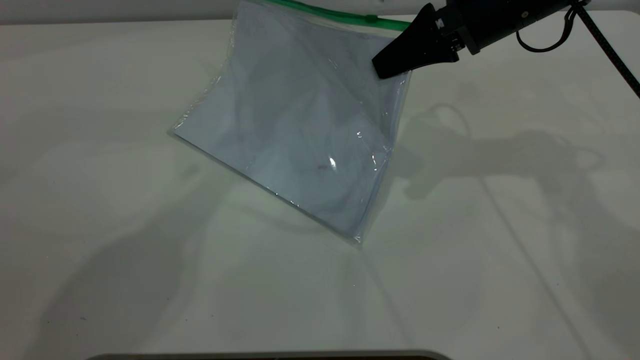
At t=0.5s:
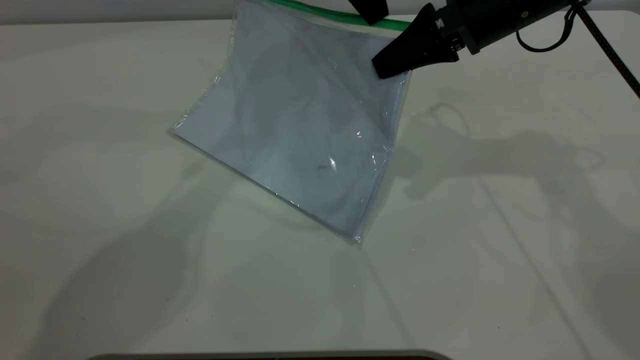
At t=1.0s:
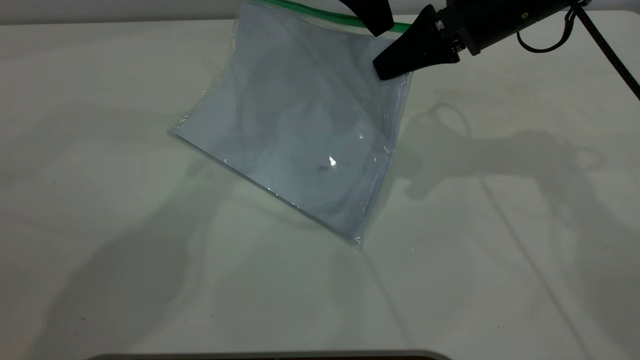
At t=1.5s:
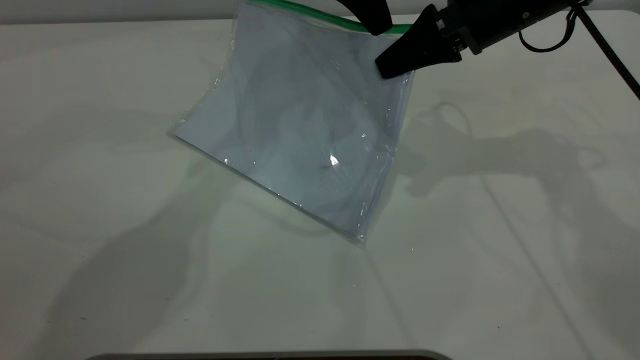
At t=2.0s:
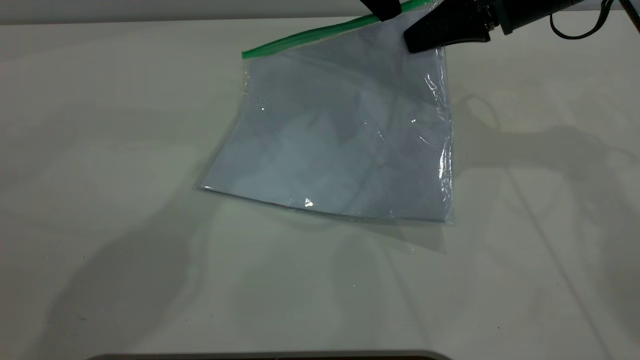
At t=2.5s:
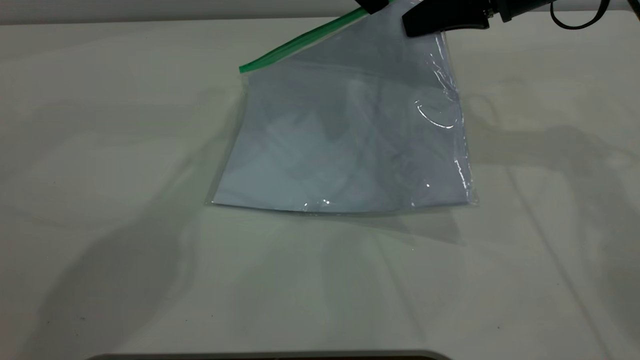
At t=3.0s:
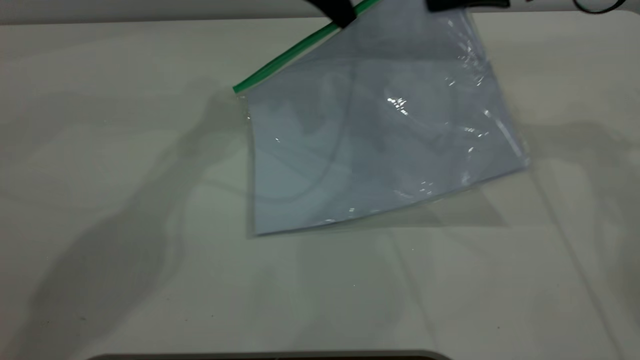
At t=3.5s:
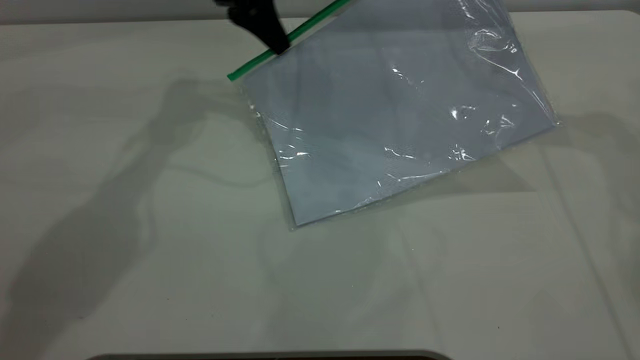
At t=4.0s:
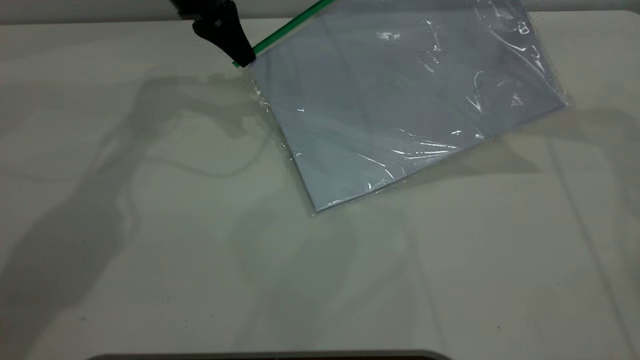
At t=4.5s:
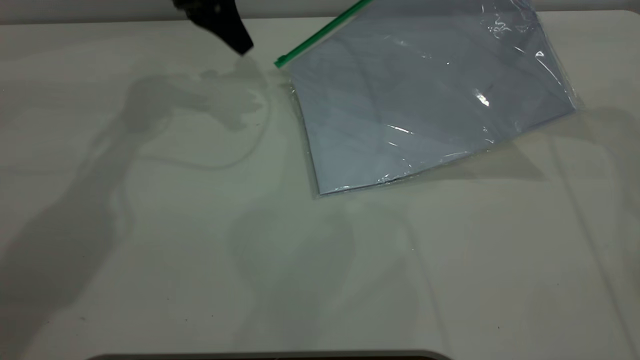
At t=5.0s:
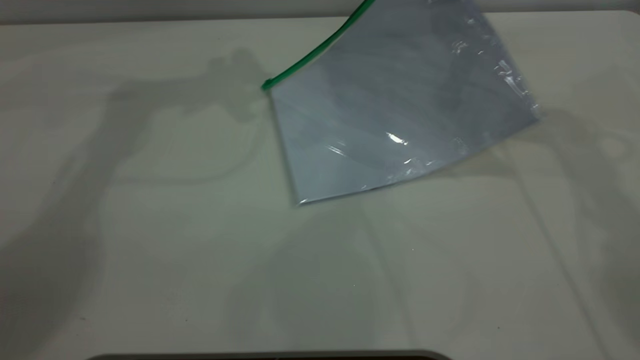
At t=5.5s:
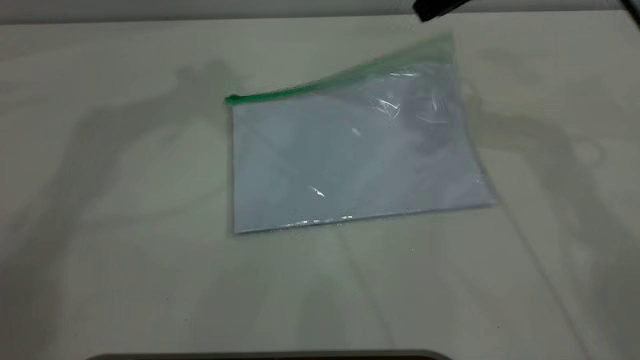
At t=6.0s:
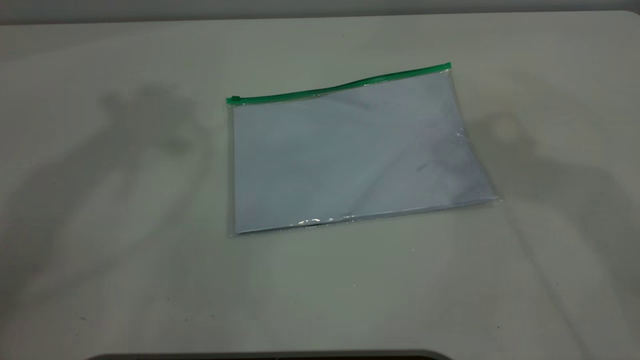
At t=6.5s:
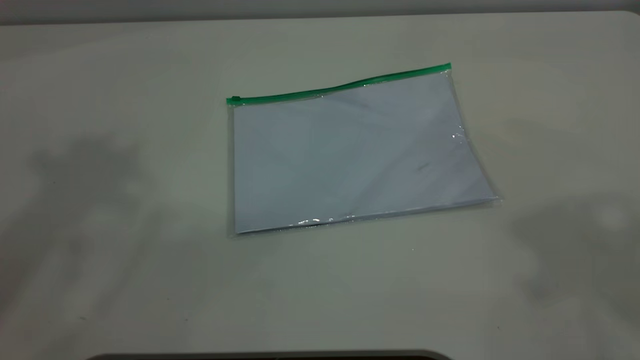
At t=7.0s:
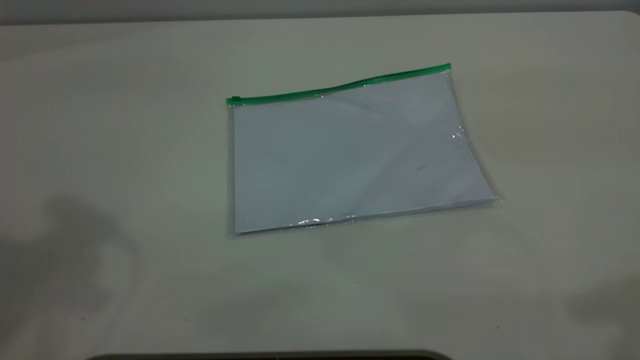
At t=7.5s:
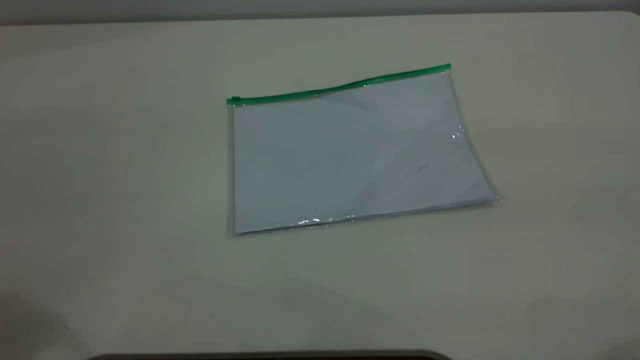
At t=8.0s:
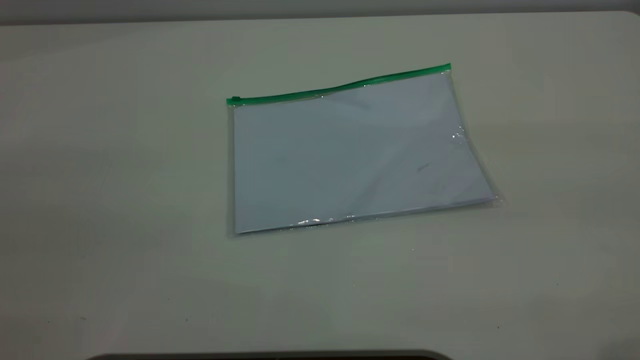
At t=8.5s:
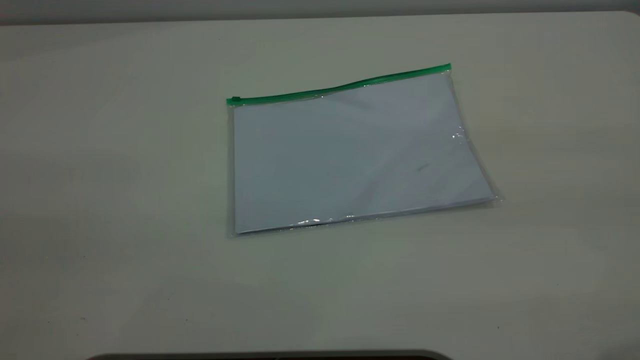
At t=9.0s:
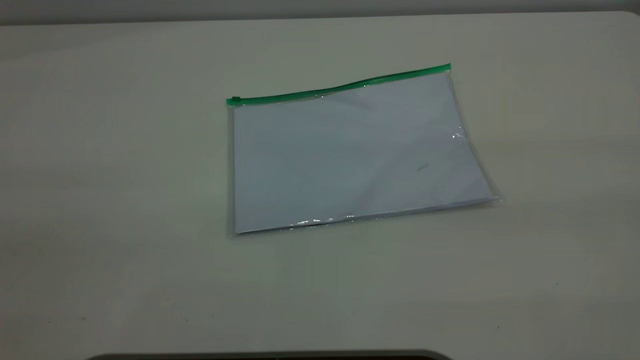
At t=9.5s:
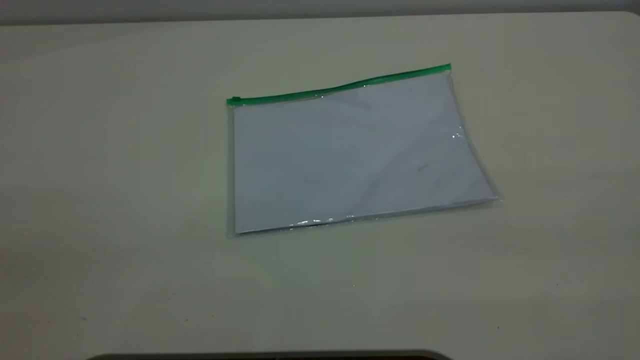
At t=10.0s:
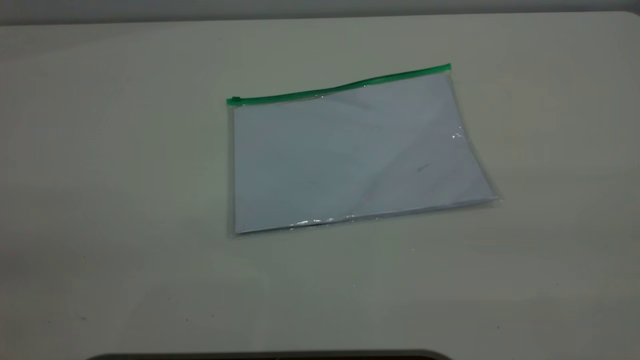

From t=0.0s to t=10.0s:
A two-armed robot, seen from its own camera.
Step, from t=0.0s to t=4.0s: Pulling up the zipper on the transparent plastic bag with the left gripper to close it.
Step, from t=4.5s to t=6.0s: Place the transparent plastic bag.
From t=0.0s to t=2.0s: The left gripper closes.
From t=2.0s to t=4.0s: The right gripper goes approximately 5 cm to the right, while the left gripper heads to the left and downward, covering roughly 20 cm.
From t=4.0s to t=6.0s: The right gripper travels upward and backward by about 25 cm, and opens. The left gripper moves upward, approximately 40 cm, and opens.
